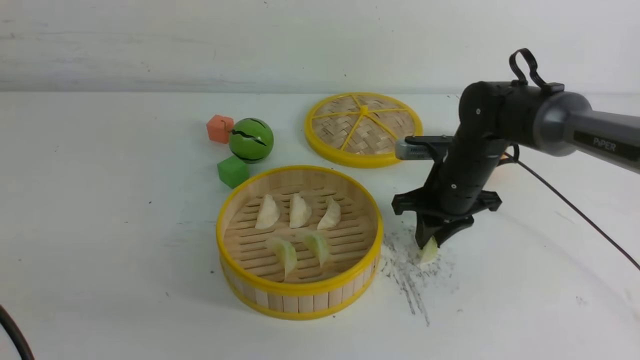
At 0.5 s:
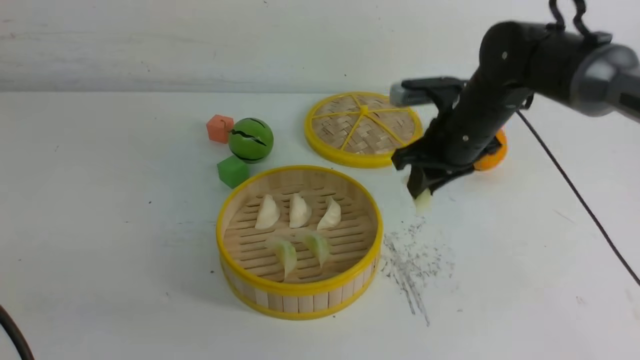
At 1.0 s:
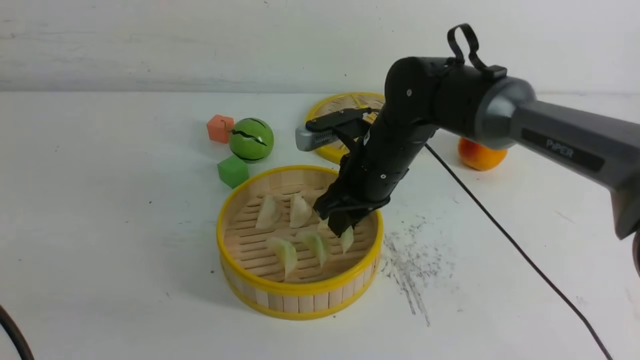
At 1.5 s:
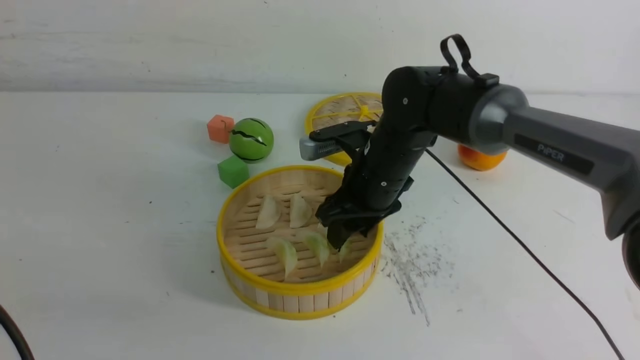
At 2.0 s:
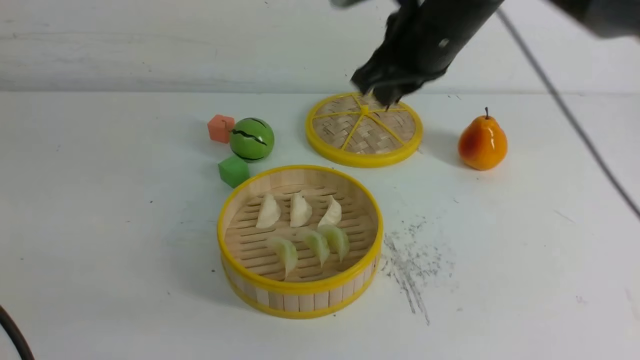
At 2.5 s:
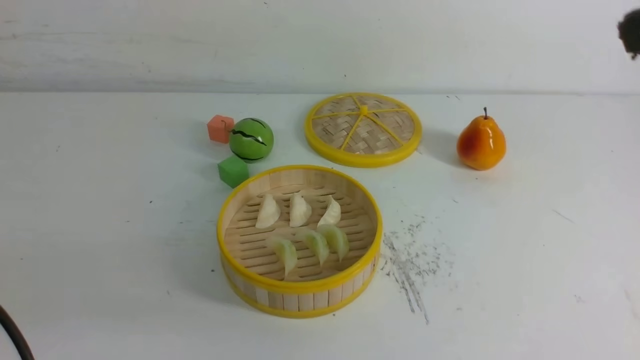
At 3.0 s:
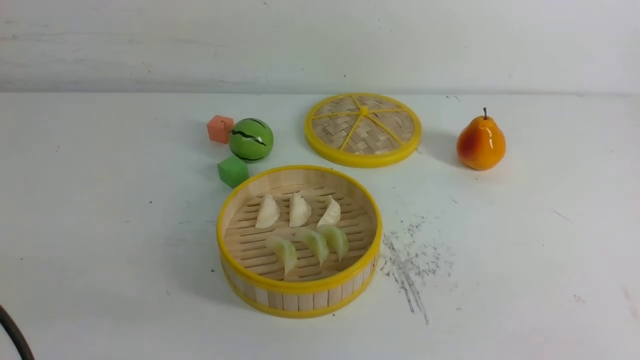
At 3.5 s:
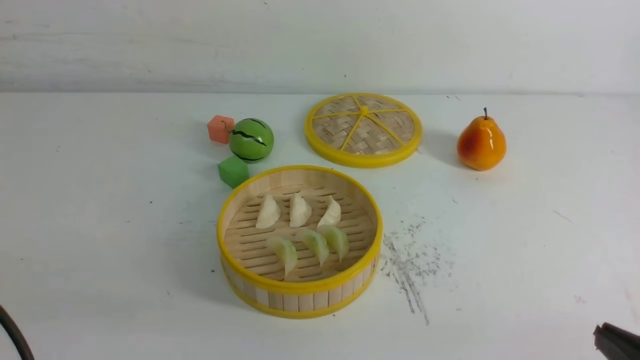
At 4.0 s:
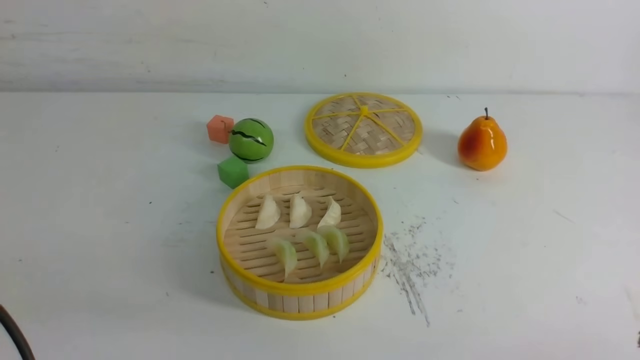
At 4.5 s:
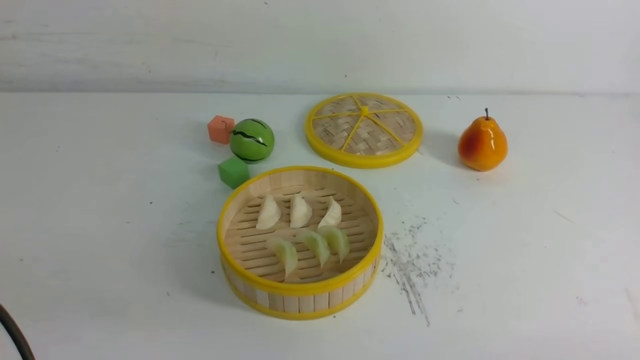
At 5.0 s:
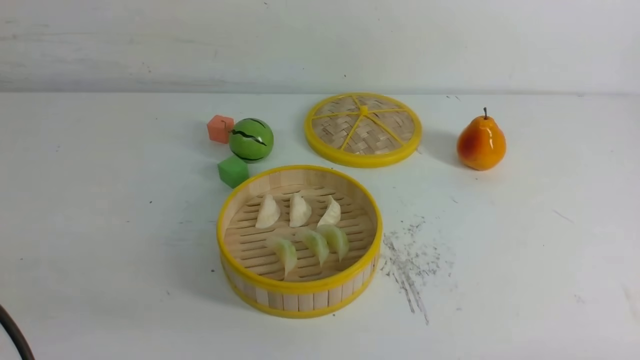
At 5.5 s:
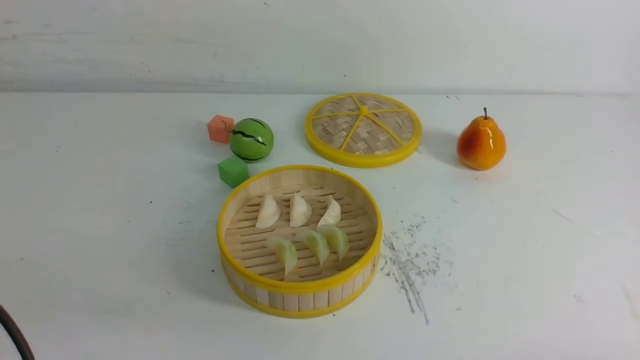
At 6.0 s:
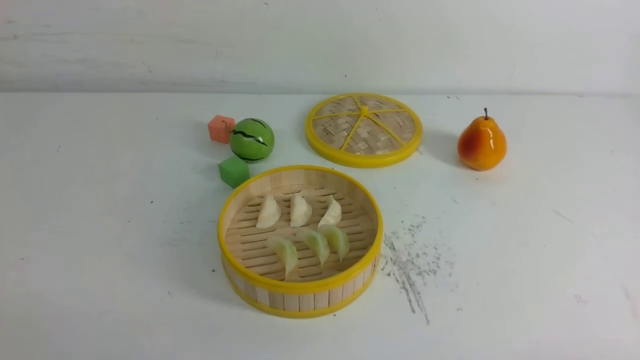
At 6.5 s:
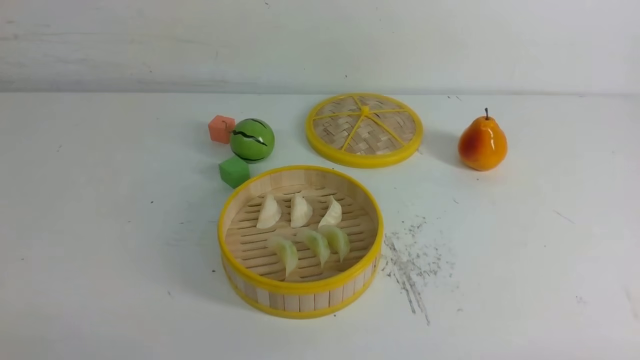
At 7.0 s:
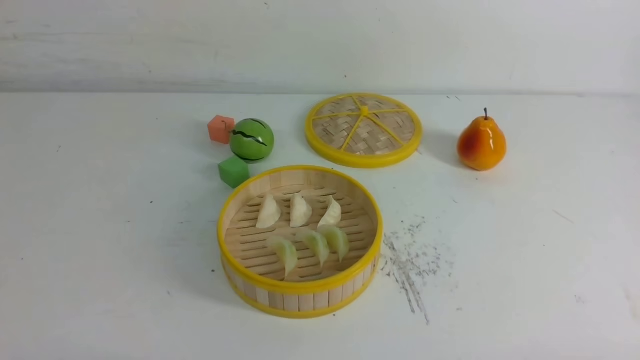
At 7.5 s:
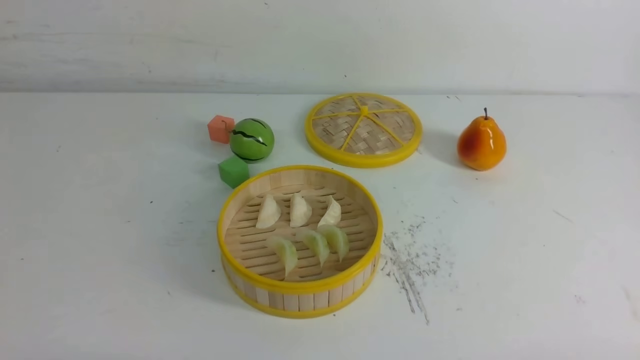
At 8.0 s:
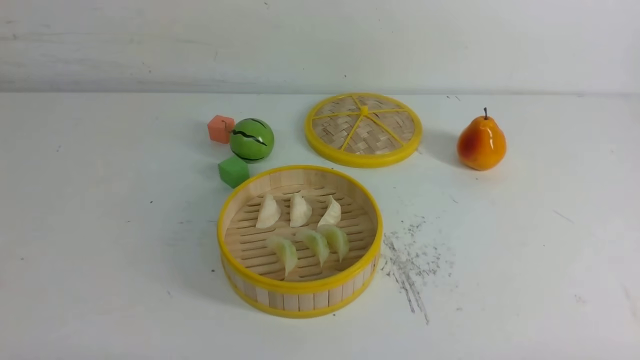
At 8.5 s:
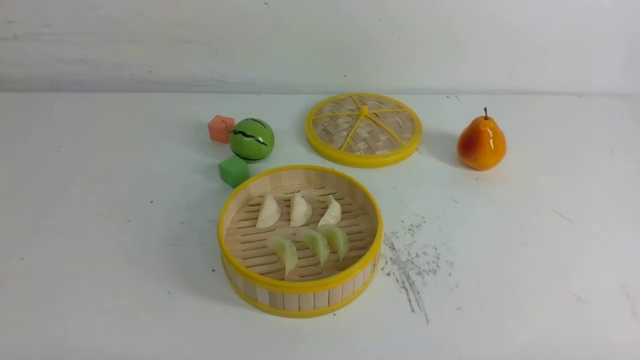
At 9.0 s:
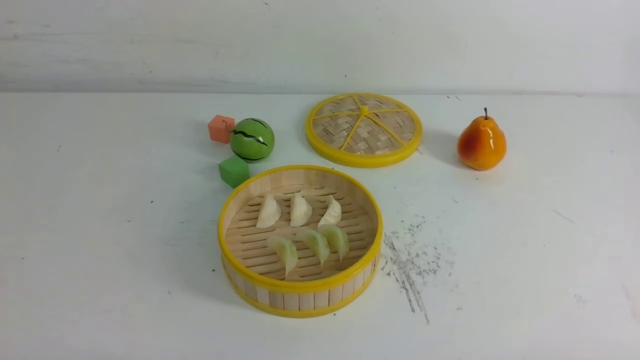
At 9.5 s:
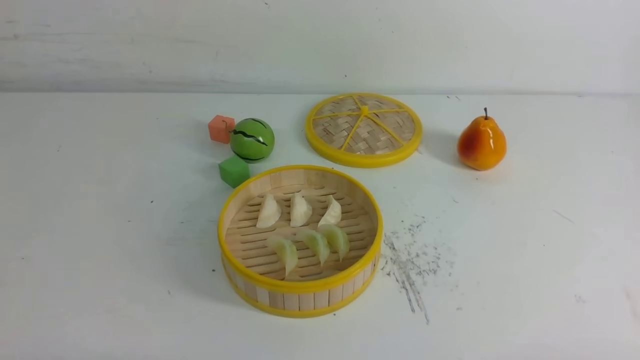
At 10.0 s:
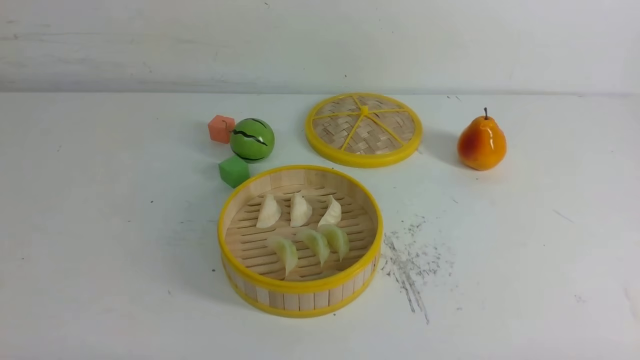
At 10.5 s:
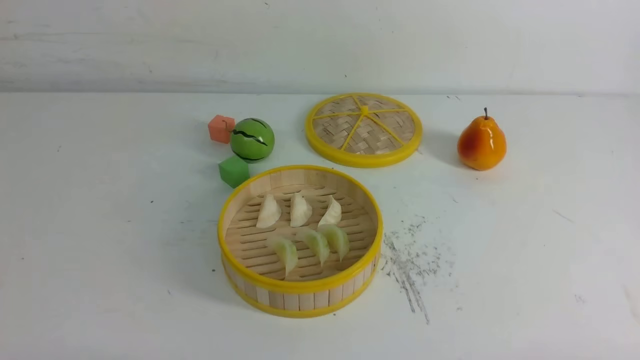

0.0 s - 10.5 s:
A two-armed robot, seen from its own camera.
Task of the whole recording: put the dumplings into the steamer on the white table.
Step, 0.5 s - 1.0 s: use the right arm to put the dumpling into the steamer.
0.0 s - 2.0 s: The right gripper heads upward, covering roughly 25 cm.
2.0 s - 4.0 s: The right gripper moves backward, downward and to the right, about 40 cm.
8.5 s - 10.5 s: Neither gripper changes place.

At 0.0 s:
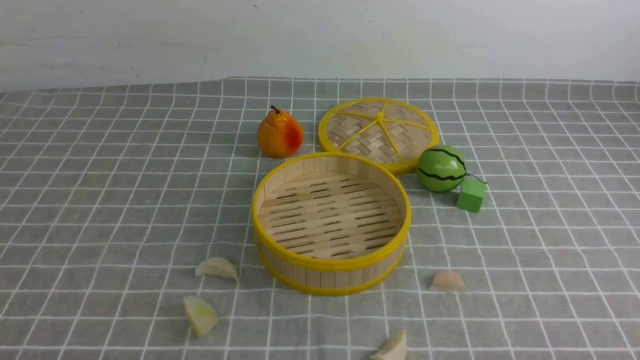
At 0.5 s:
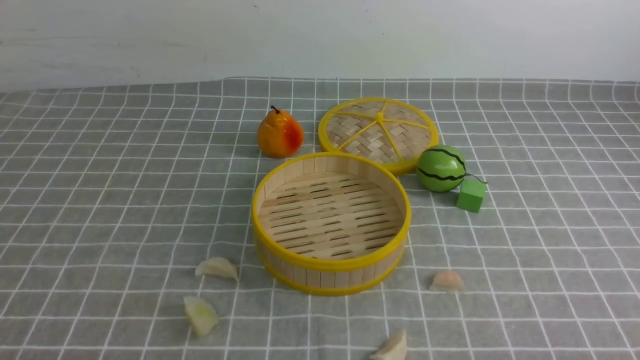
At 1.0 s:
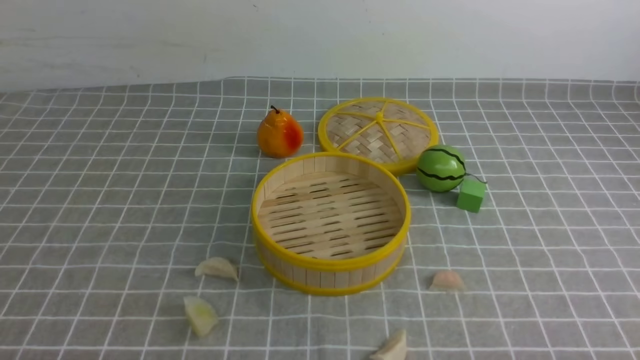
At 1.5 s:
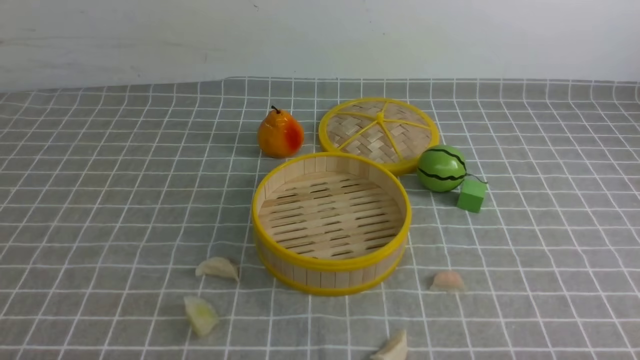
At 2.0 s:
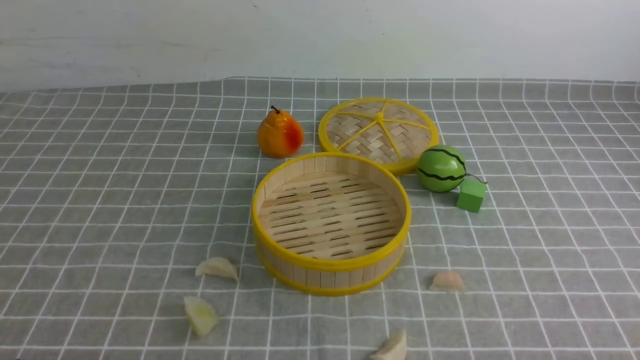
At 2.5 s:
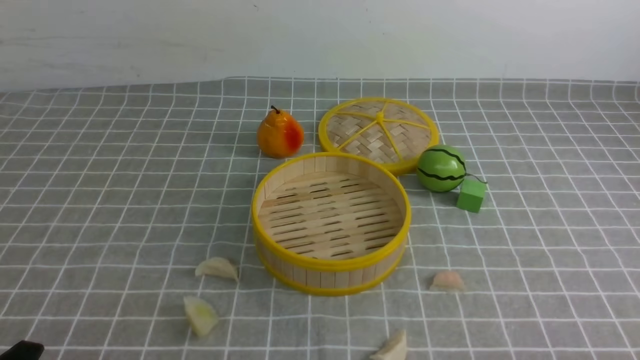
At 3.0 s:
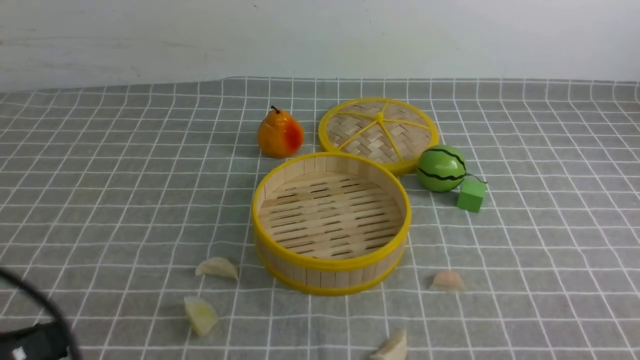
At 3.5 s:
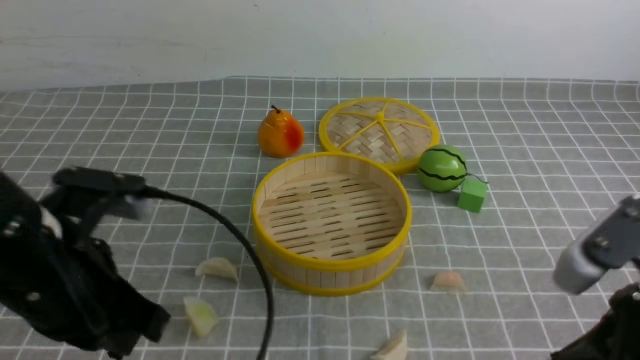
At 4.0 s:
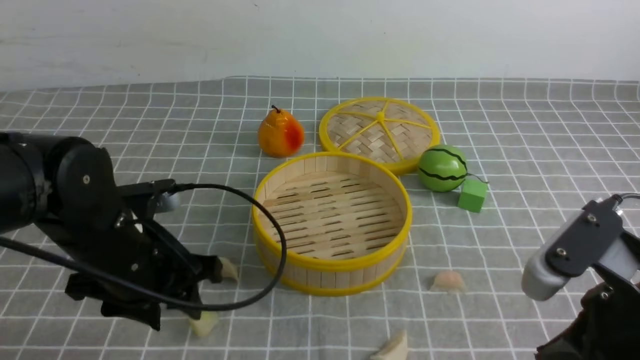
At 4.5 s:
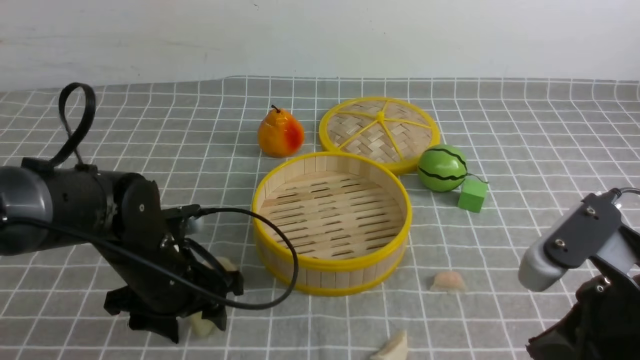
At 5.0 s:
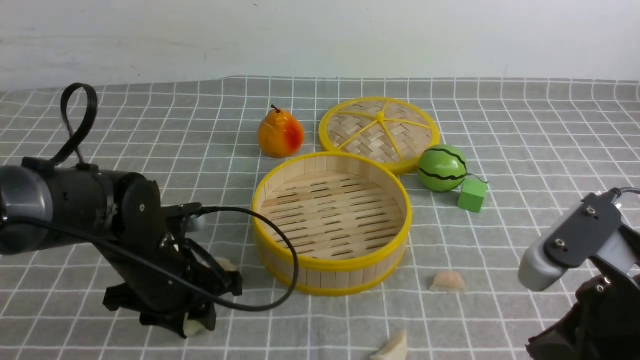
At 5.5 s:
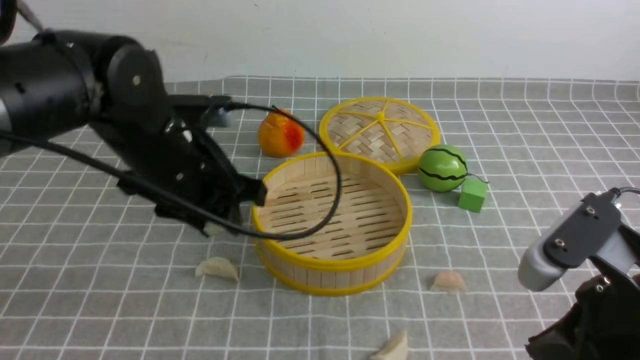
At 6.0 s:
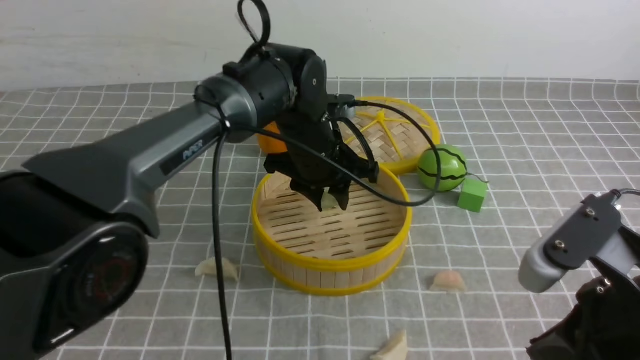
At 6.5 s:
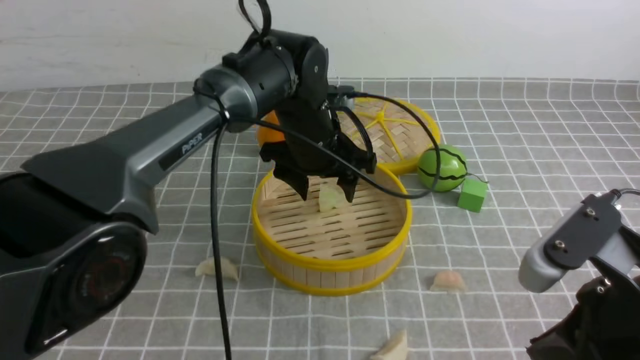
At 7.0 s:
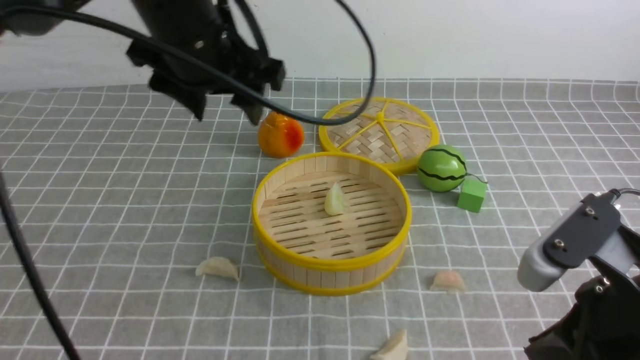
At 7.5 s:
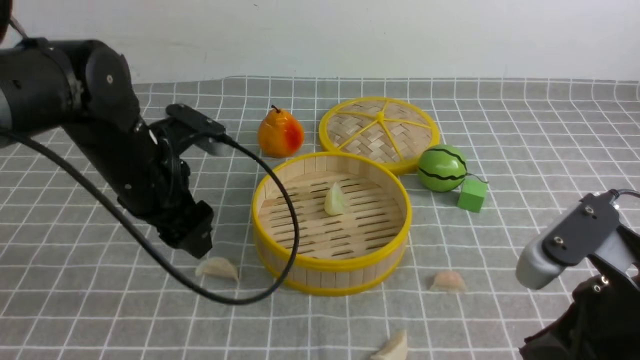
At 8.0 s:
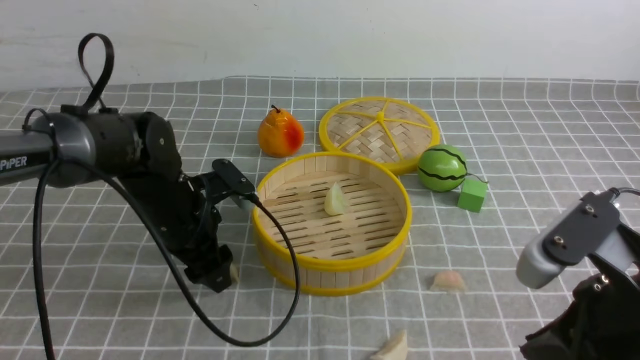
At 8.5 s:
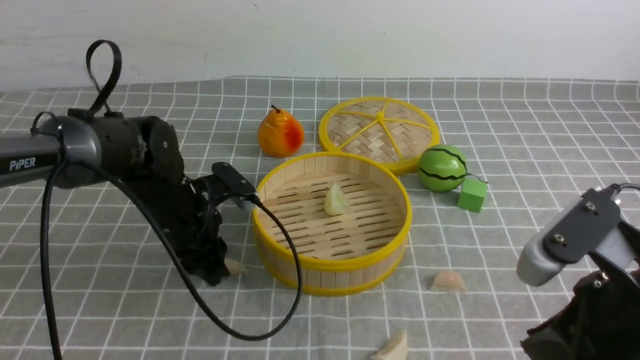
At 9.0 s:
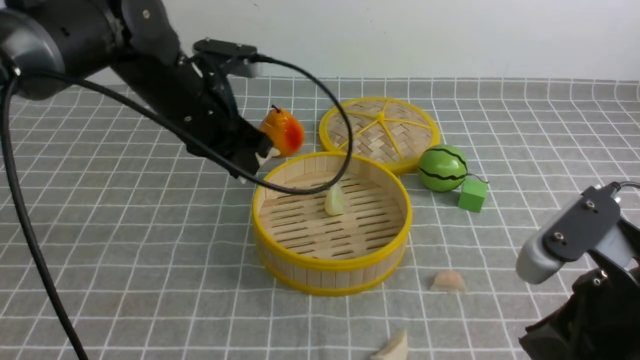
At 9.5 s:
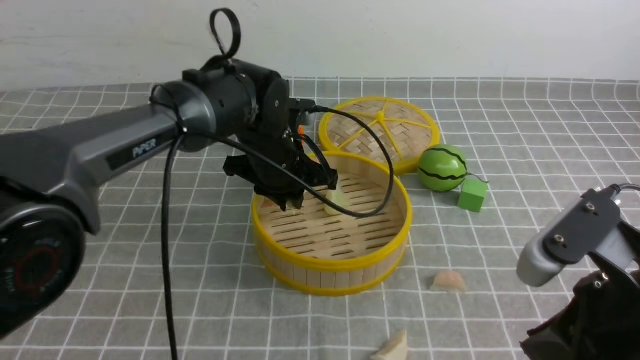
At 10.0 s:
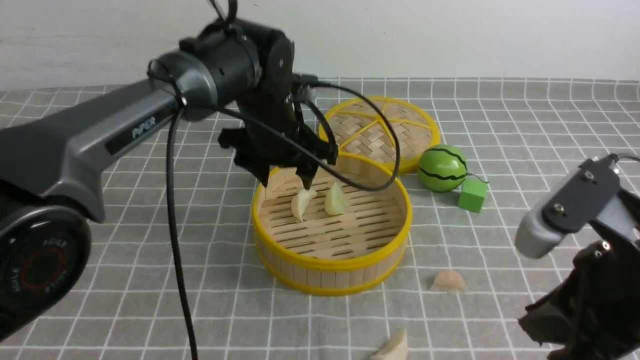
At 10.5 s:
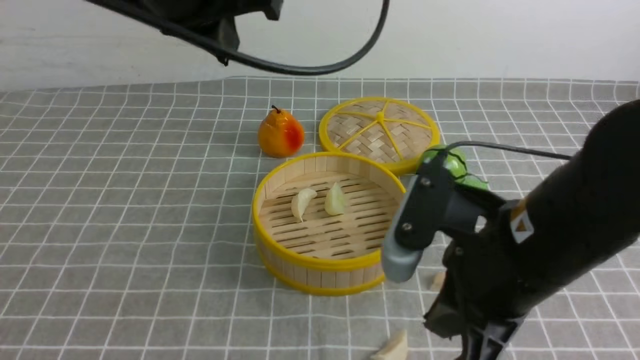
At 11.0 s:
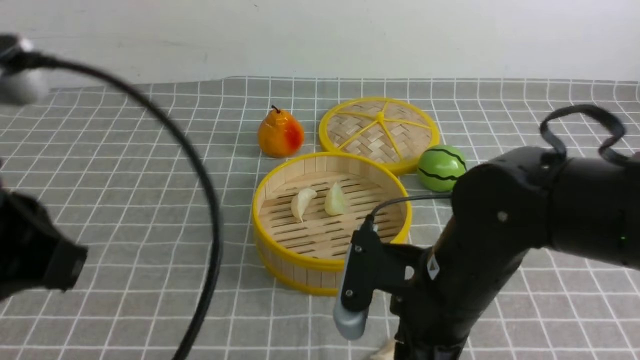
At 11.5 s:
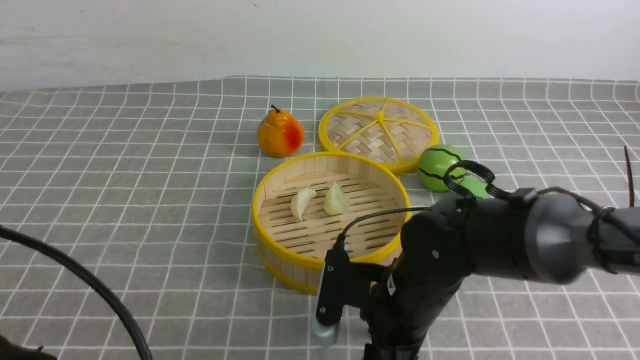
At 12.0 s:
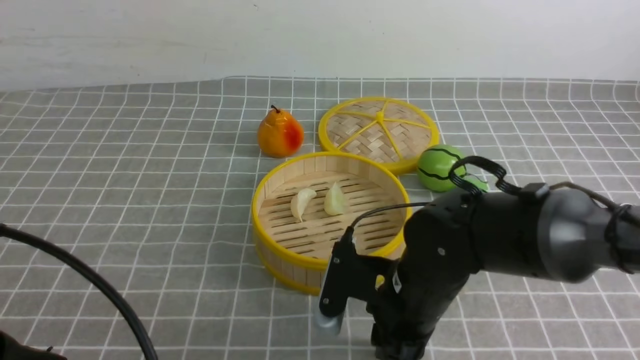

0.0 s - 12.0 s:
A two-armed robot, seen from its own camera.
Task of the whole recording: put the dumplings into the steamer on the table with the grey tablecloth.
Step, 0.0 s - 5.0 s: use the left arm to grab a dumpling.
Step, 5.5 s - 6.5 s: use the left arm to put the dumpling into the steamer.
Step, 7.0 s - 8.5 s: use the left arm to grab a dumpling.
Step, 9.0 s - 9.5 s: use the left arm to put the dumpling into the steamer.
2.0 s - 4.0 s: The right gripper shifts approximately 15 cm forward, upward and to the left, and closes up, while the left gripper goes about 25 cm forward and to the right, and closes, then reopens.
4.0 s - 6.0 s: The left gripper shifts about 20 cm forward and to the right.
6.0 s - 8.0 s: The left gripper travels to the left by roughly 15 cm, and reaches roughly 15 cm upward, then returns.
8.0 s - 10.0 s: The left gripper goes up and down, approximately 10 cm each way, reversing 2 times, and closes and opens again.
10.0 s - 12.0 s: The left gripper moves backward and to the left, roughly 35 cm, and closes its fingers, while the right gripper moves downward, to the left and forward, some 20 cm, and opens, then closes again.
